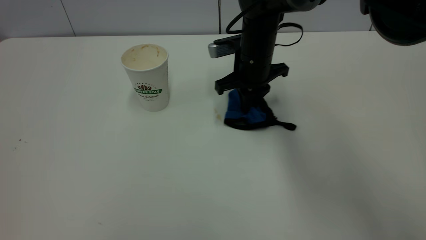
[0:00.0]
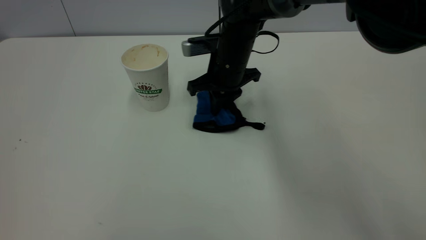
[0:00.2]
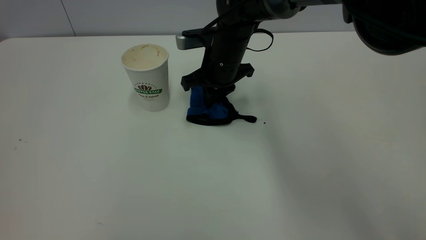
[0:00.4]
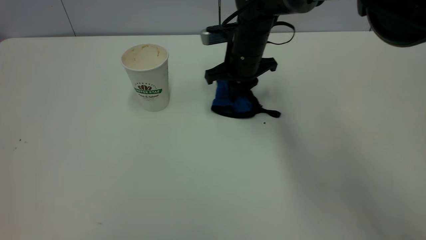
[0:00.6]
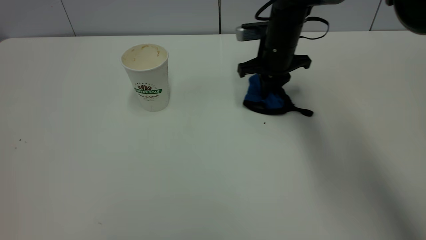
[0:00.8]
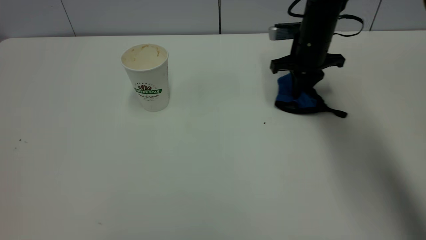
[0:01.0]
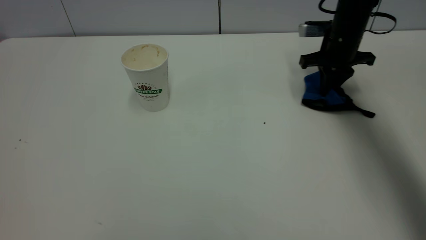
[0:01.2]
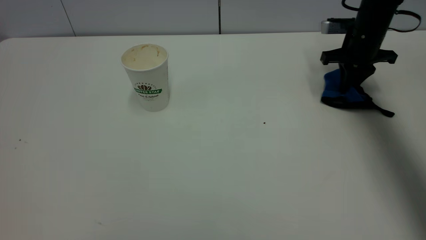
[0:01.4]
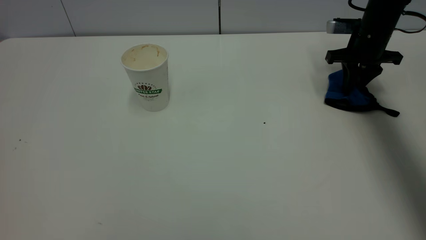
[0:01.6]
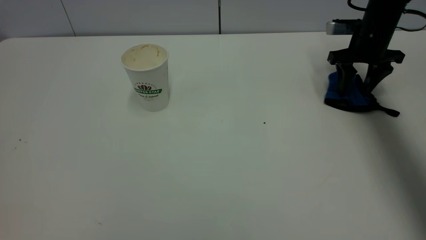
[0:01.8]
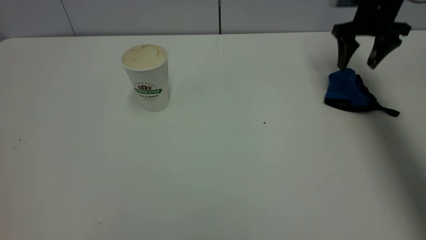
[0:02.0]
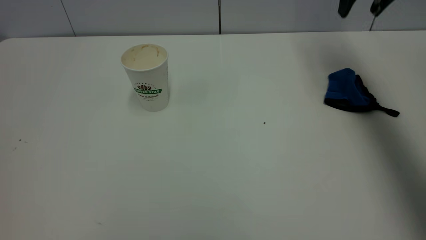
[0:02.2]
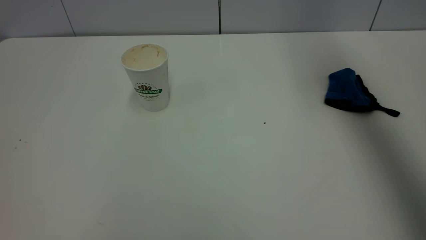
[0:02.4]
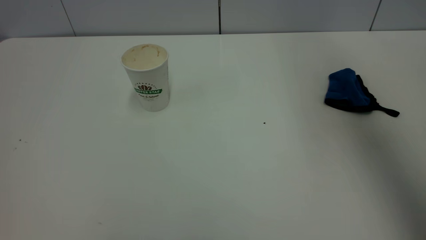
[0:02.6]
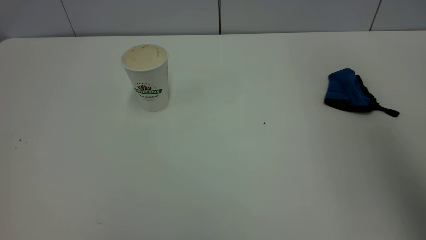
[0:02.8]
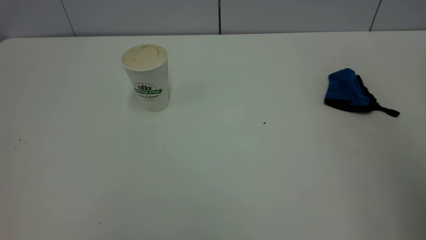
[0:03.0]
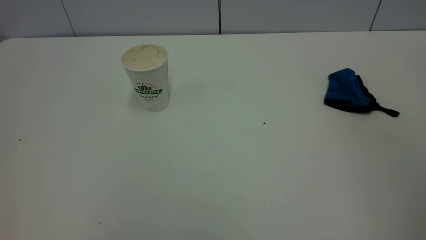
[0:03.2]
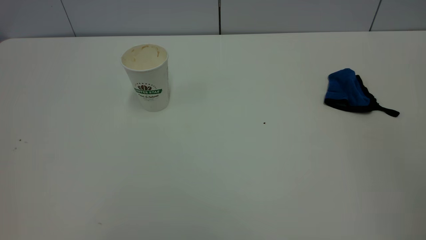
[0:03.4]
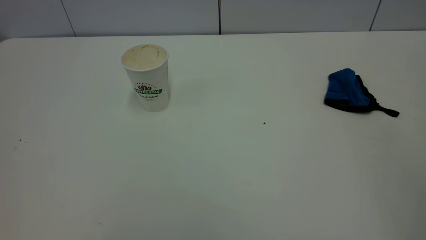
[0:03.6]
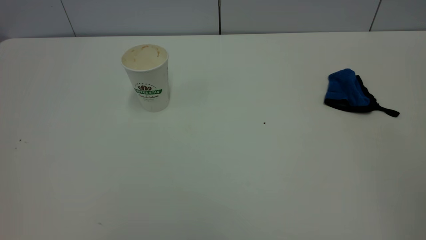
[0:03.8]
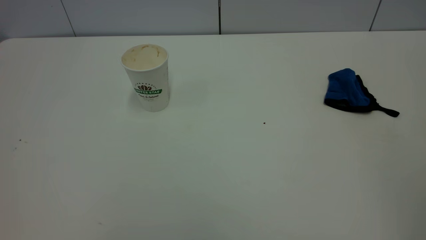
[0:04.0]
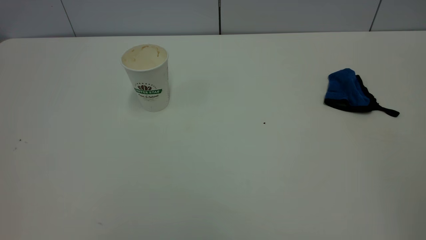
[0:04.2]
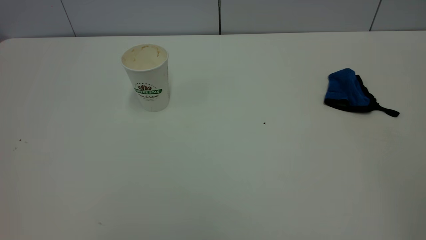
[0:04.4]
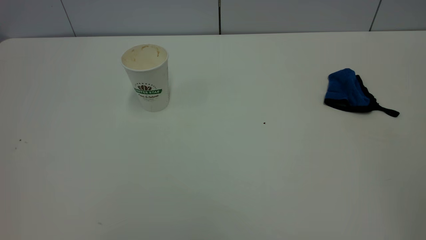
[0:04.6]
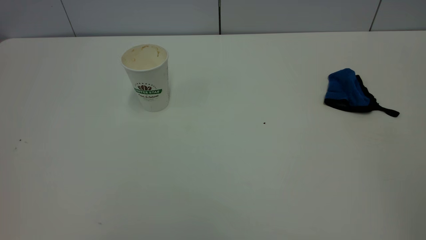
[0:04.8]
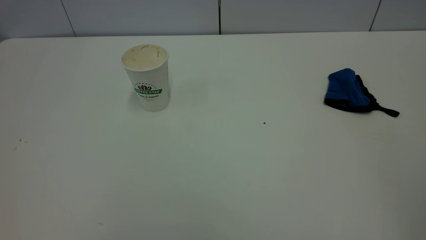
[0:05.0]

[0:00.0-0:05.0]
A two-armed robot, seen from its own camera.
Task of the whole recording: the left gripper pick up the fallen cup and place it upright, the right gripper grasp the blue rag and wipe the tea stain on the table, the right gripper put the blue rag back in its original position.
Step, 0:00.0 to 0:02.0: Wipe the stains off the table with a rag.
0:00.0 to 0:01.6: The right gripper is displaced to the right by approximately 25 cm.
0:01.6 to 0:03.4: The right gripper travels backward and upward by approximately 60 cm, and opens its fingers.
